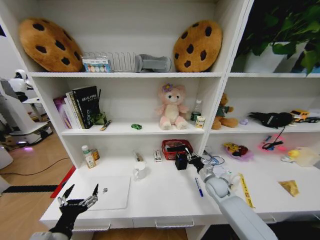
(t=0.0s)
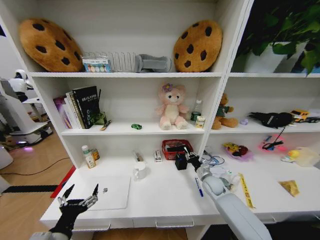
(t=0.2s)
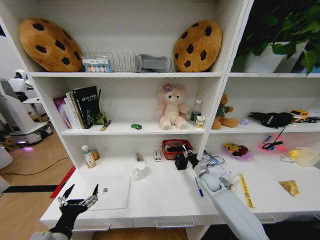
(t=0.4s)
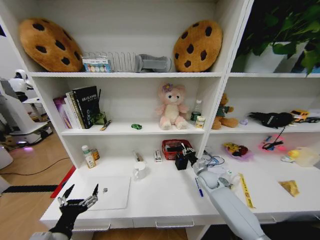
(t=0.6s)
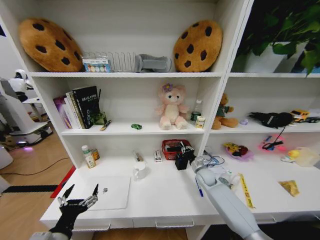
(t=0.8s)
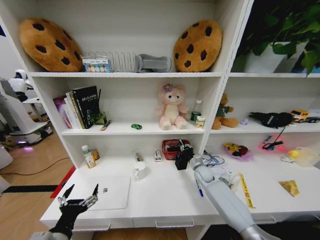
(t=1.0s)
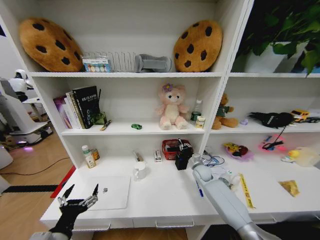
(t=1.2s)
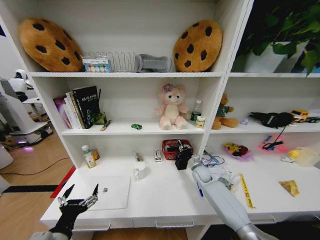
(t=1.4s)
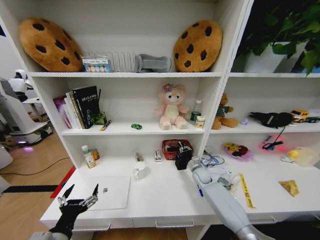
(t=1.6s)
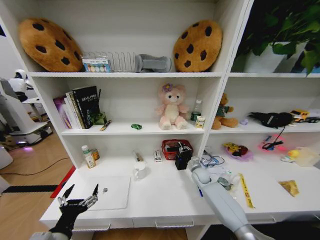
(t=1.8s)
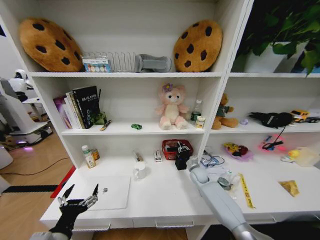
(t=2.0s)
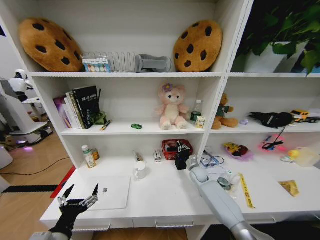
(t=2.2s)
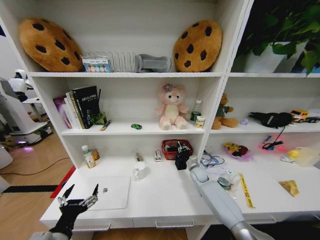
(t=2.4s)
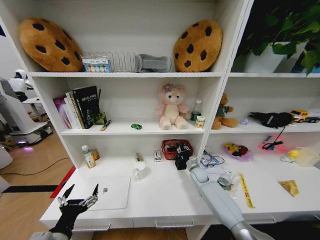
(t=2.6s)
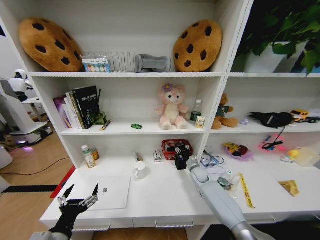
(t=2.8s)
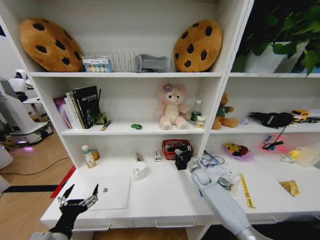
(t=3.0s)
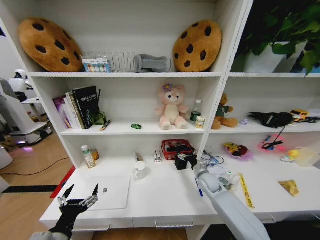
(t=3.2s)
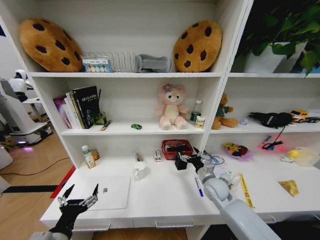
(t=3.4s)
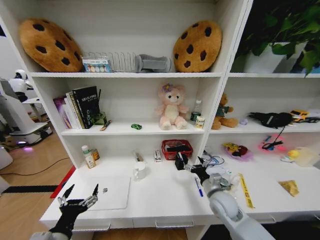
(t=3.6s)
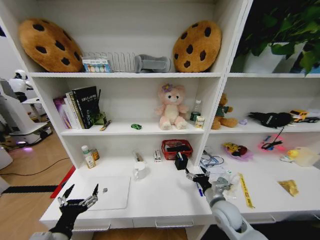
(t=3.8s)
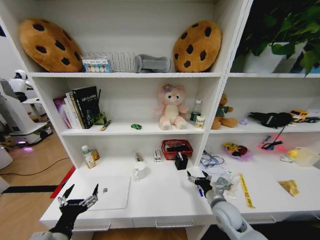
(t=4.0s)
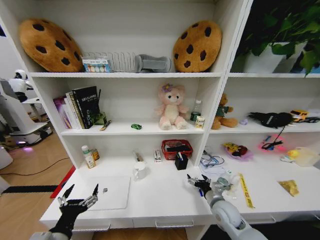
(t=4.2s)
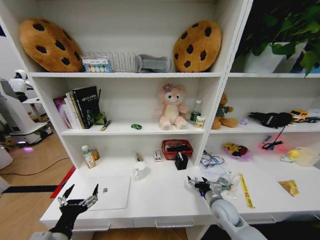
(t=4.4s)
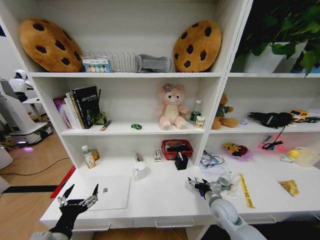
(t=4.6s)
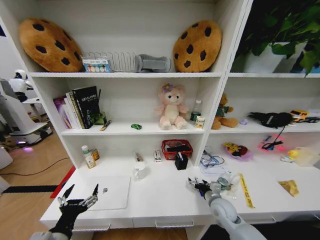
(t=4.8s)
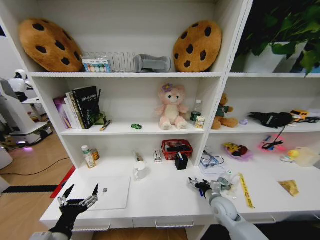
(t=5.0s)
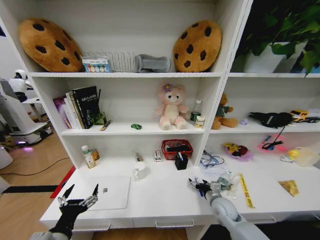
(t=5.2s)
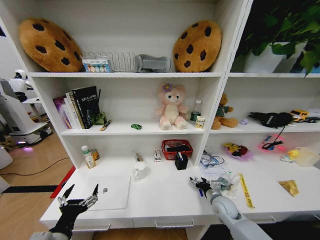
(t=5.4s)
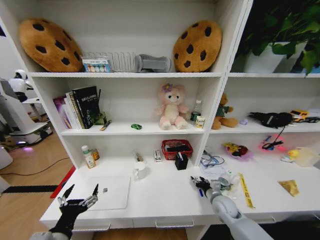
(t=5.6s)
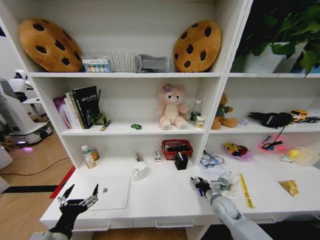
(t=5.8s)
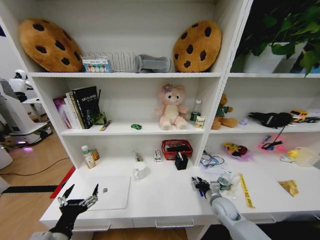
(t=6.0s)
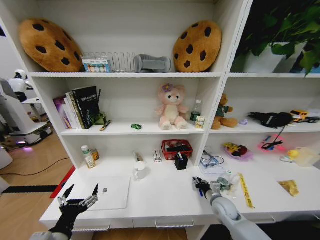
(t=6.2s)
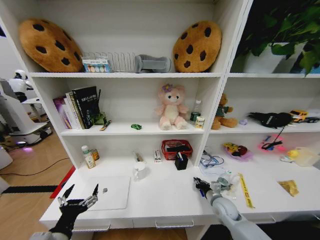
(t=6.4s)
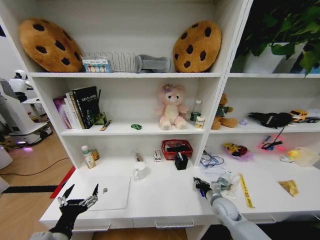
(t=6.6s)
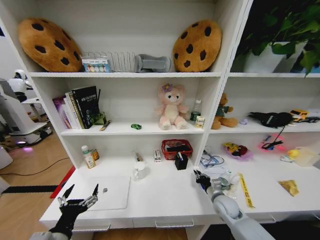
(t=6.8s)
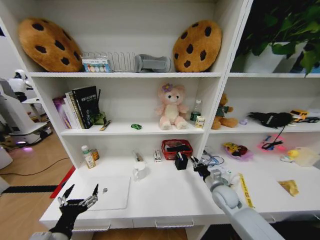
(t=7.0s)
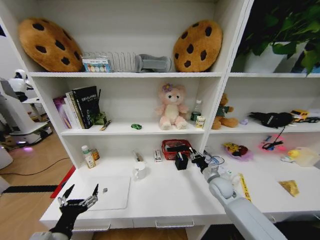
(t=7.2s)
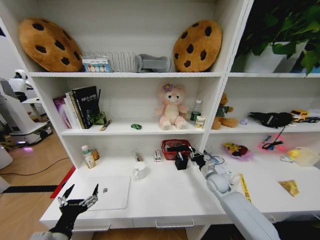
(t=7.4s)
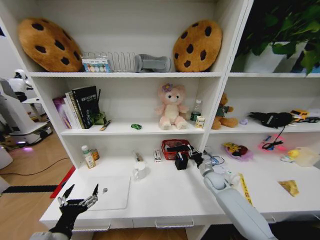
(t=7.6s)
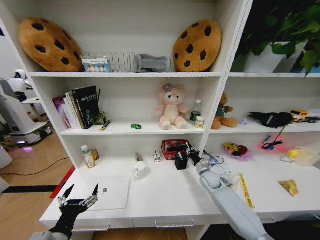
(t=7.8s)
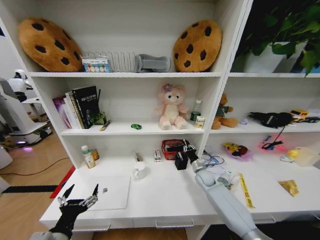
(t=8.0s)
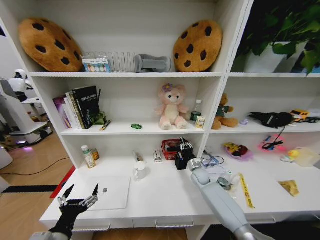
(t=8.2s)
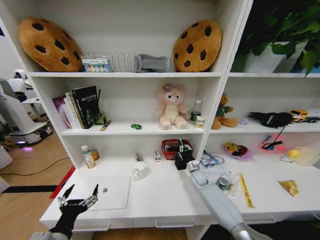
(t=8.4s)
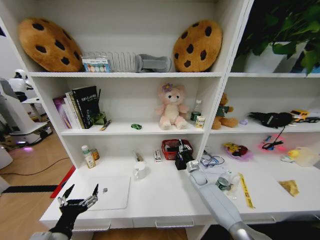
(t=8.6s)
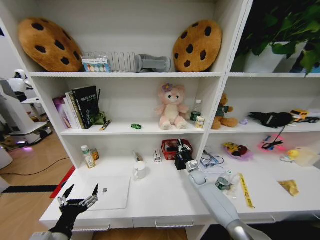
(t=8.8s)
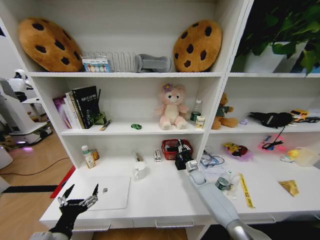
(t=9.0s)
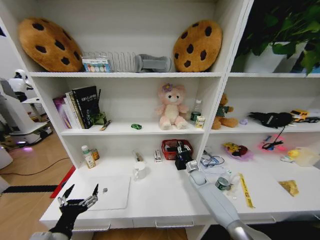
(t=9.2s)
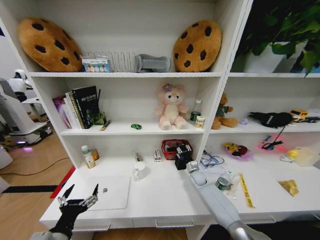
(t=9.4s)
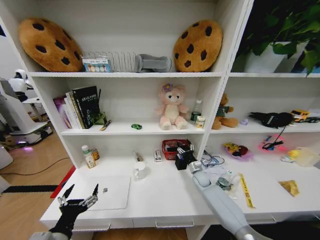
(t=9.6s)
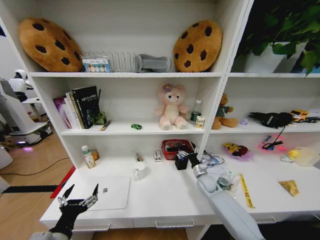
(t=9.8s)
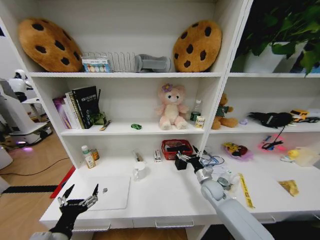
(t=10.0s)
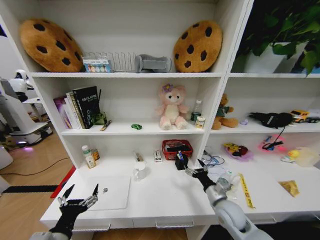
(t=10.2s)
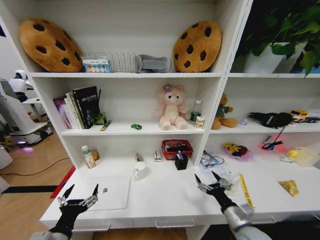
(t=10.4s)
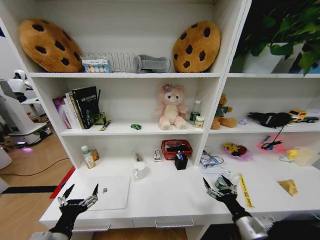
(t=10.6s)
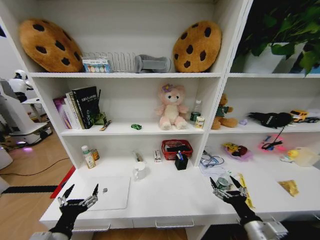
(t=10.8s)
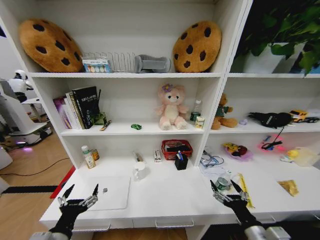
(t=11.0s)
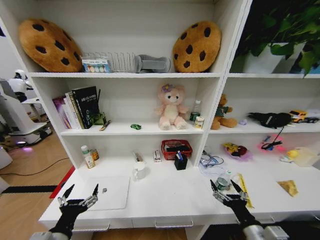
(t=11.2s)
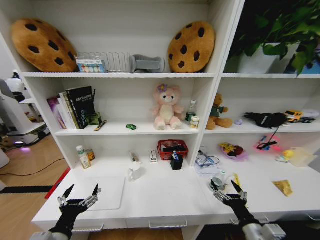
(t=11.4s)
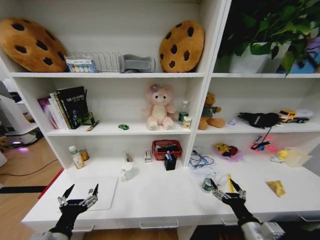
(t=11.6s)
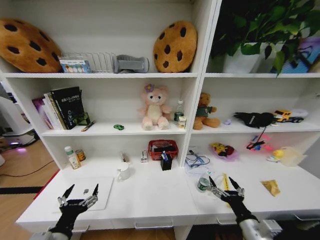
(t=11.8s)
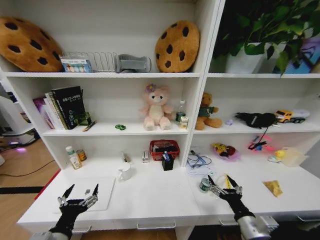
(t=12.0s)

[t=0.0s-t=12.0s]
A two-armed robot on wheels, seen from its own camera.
Task of the whole recording: Organize the objects on the table.
t=0.0s to t=1.6s: The right gripper travels forward by roughly 5 cm.
t=3.0s to t=4.4s: The right gripper travels backward by about 15 cm.
t=4.4s to t=6.0s: The right gripper ends up about 5 cm from where it was, and closes its fingers.
t=6.0s to t=7.6s: The right gripper travels forward by approximately 10 cm.
t=7.6s to t=9.0s: The right gripper shifts roughly 10 cm to the left and downward.
t=9.0s to t=10.4s: The right gripper is displaced backward by approximately 30 cm, and opens.
t=10.4s to t=12.0s: The right gripper heads backward, covering about 5 cm.

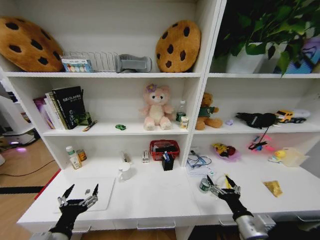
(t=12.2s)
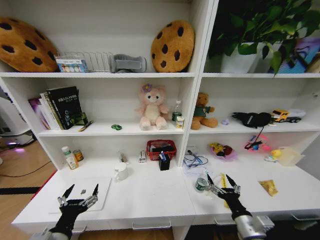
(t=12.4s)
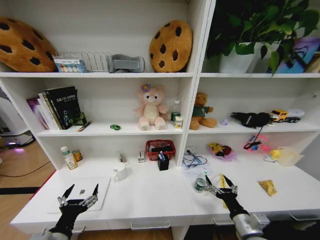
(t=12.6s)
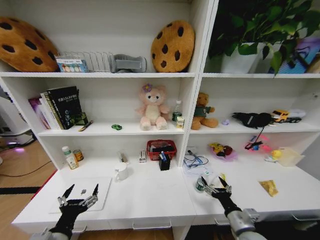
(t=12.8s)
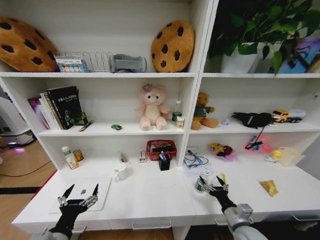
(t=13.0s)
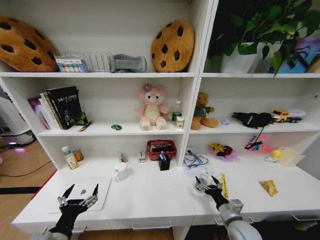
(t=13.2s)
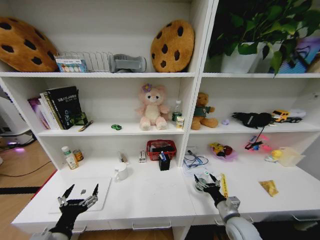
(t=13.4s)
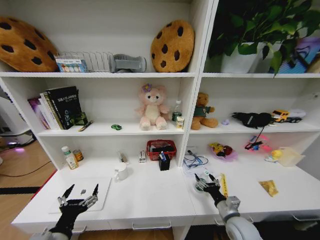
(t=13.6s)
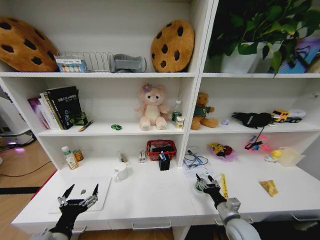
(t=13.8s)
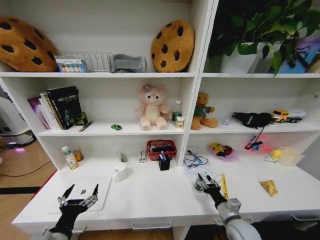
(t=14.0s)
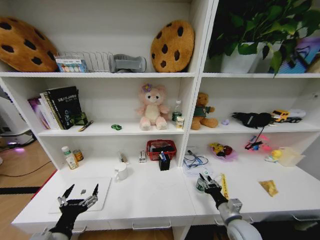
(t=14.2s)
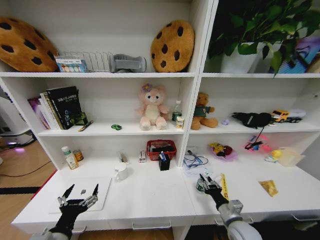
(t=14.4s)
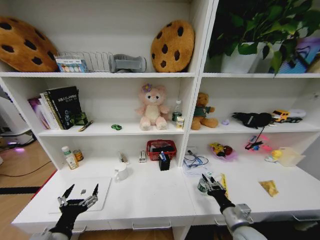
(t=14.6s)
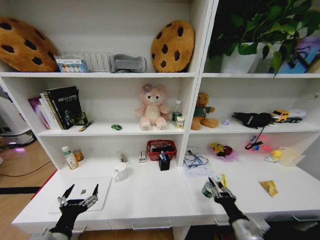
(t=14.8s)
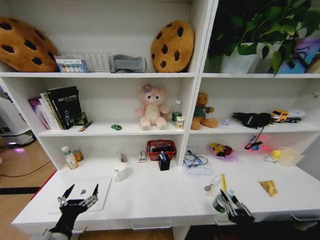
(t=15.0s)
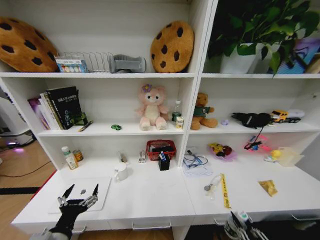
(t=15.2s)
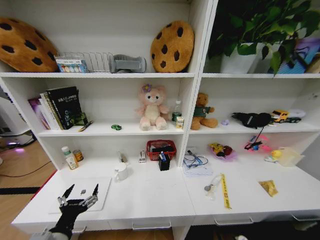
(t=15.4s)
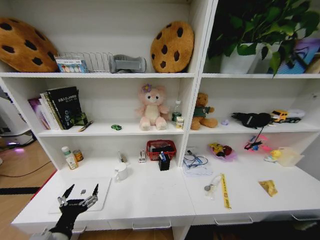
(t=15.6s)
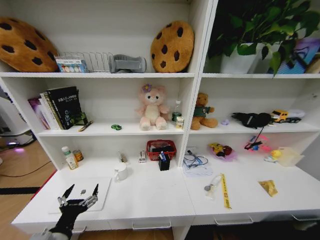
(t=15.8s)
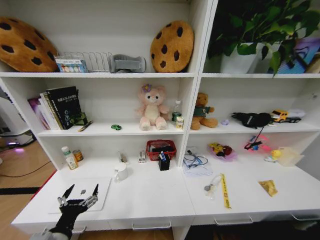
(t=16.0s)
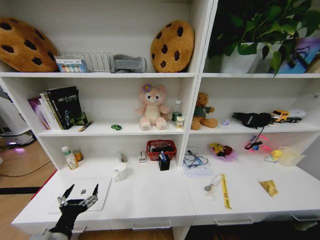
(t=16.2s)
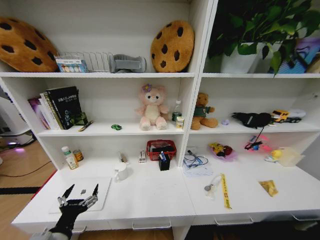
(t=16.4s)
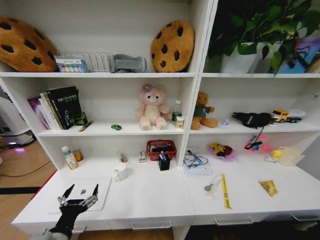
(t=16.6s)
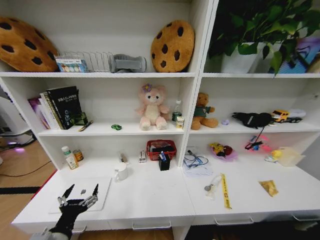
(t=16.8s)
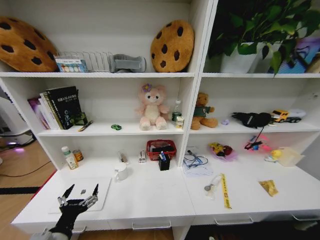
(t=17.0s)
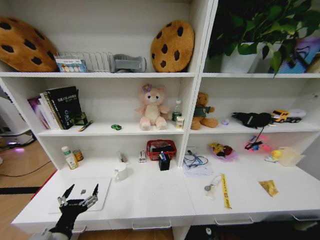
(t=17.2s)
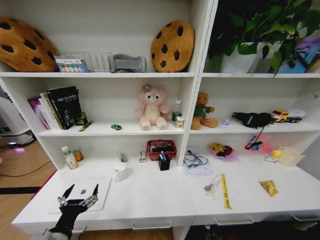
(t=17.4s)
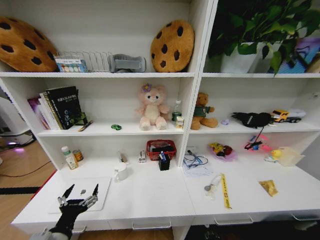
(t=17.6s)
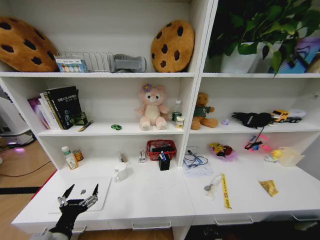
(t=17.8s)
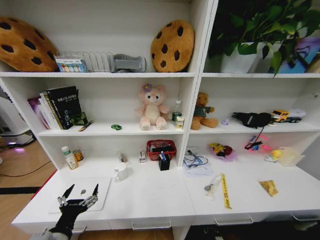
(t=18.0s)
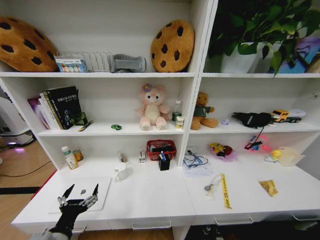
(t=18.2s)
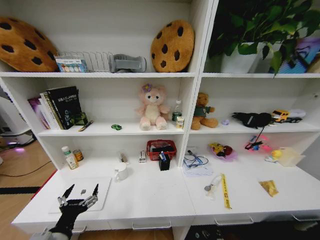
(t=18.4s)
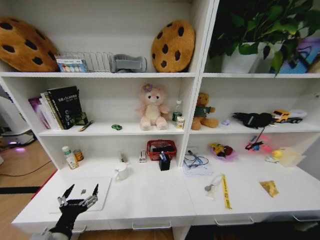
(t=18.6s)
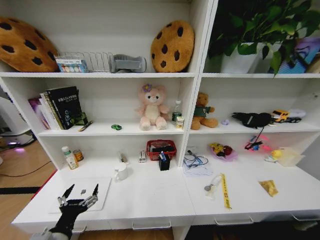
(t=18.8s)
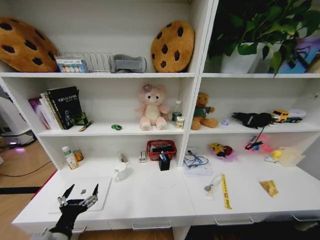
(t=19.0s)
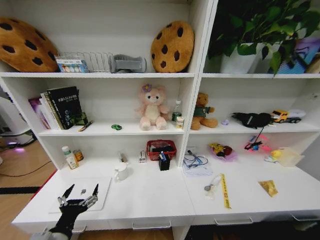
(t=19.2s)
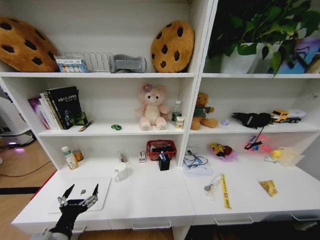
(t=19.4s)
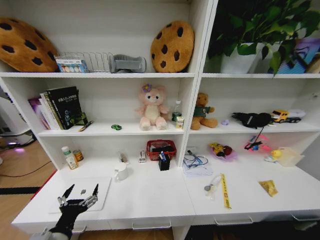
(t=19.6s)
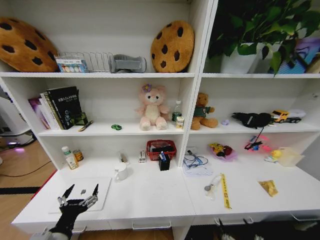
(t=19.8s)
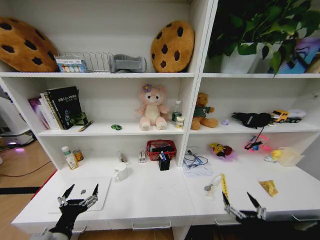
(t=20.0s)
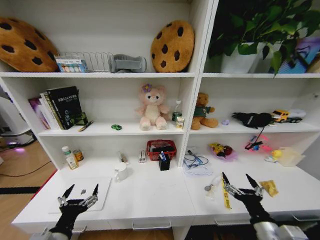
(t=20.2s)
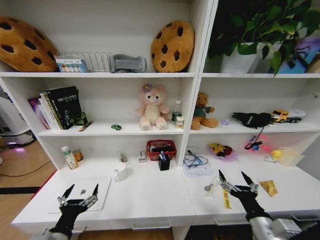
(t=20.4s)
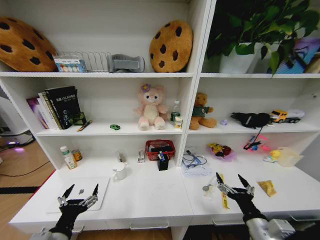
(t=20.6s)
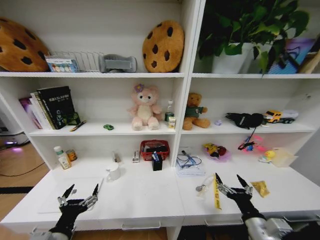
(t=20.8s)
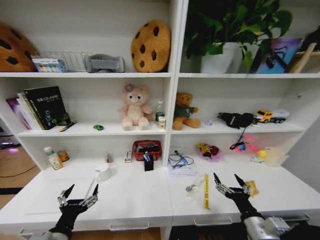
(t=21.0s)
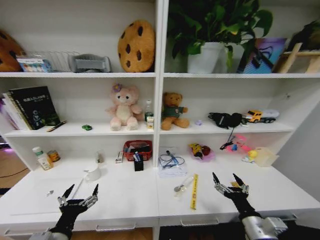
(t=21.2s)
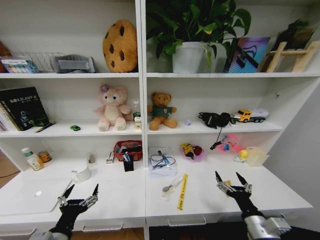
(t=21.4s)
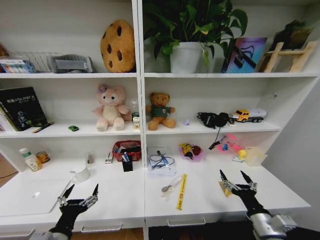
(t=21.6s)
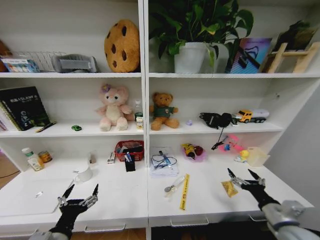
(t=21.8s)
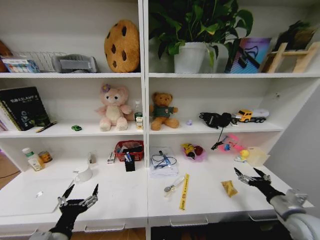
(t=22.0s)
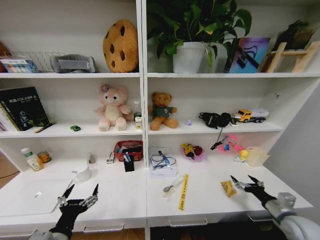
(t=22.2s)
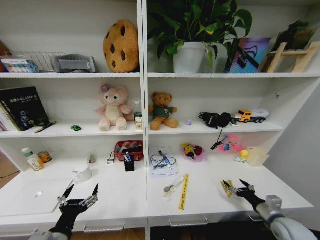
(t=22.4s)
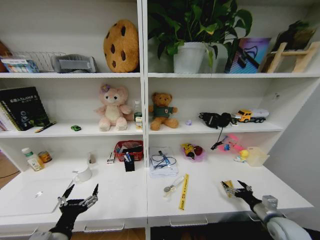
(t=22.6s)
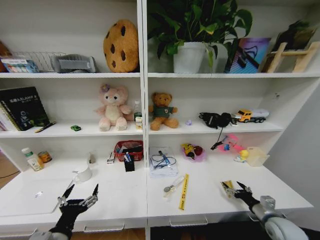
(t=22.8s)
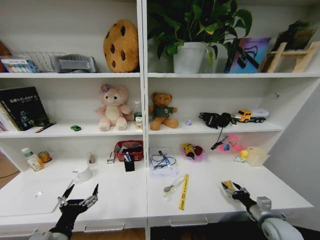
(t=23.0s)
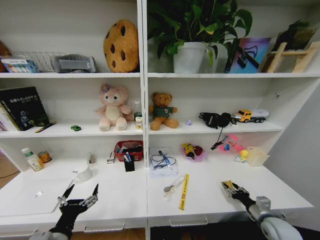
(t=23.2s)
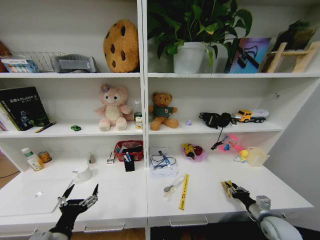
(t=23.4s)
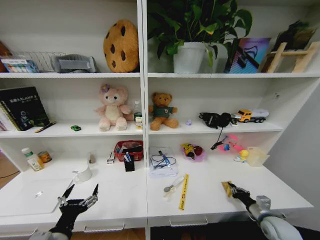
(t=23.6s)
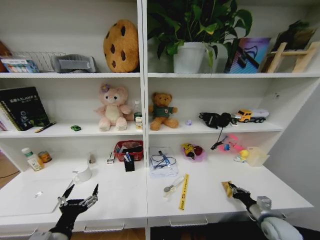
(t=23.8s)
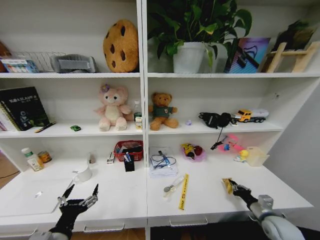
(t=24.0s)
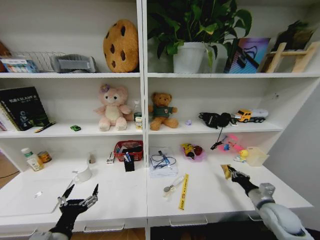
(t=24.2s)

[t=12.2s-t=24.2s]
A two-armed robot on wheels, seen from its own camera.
Task of the whole recording: Organize the objects on the table.
t=12.2s to t=13.8s: The right gripper shifts some 10 cm forward and downward.
t=13.8s to t=15.2s: The right gripper travels backward by approximately 25 cm, and closes up.
t=15.2s to t=16.6s: The right gripper goes roughly 35 cm downward.
t=19.8s to t=21.2s: The right gripper shifts some 15 cm forward and upward.
t=21.2s to t=22.6s: The right gripper heads to the right, forward and downward, covering roughly 20 cm.
t=22.6s to t=24.2s: The right gripper closes.
